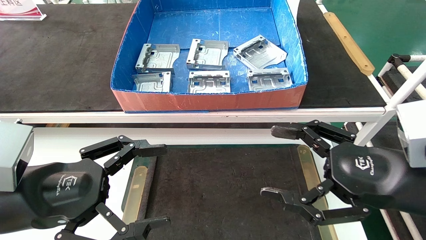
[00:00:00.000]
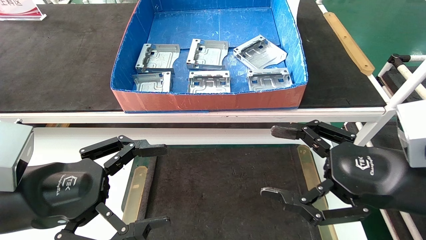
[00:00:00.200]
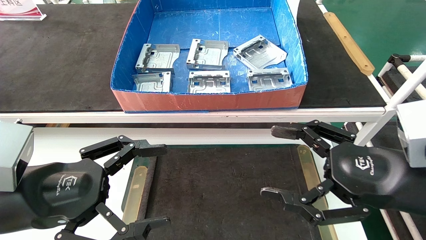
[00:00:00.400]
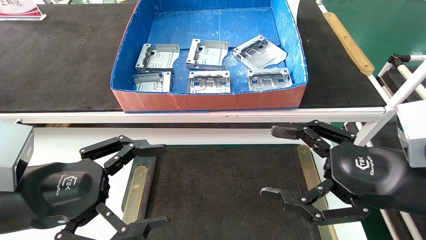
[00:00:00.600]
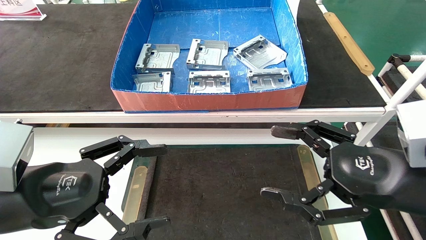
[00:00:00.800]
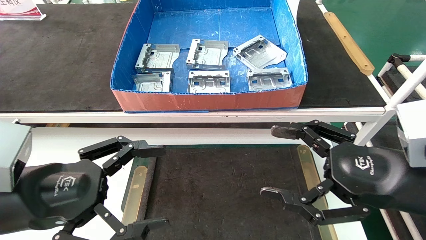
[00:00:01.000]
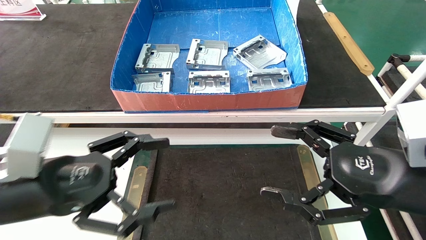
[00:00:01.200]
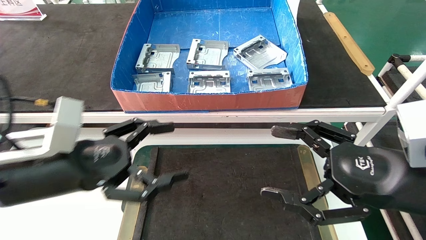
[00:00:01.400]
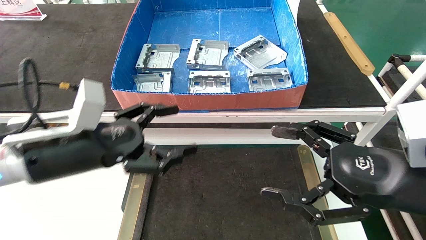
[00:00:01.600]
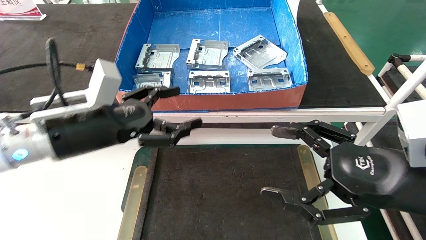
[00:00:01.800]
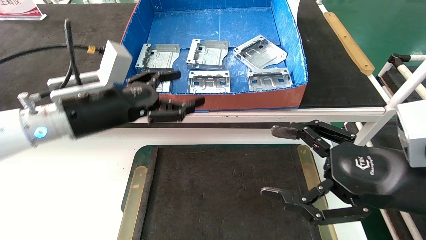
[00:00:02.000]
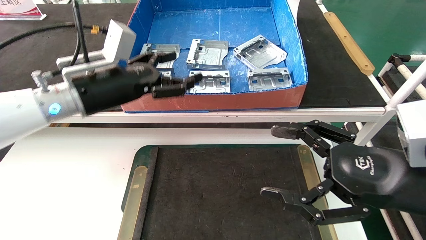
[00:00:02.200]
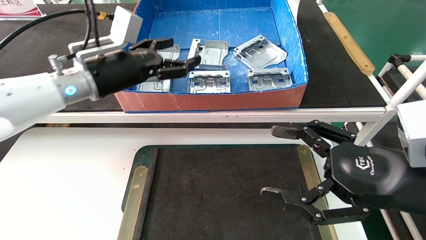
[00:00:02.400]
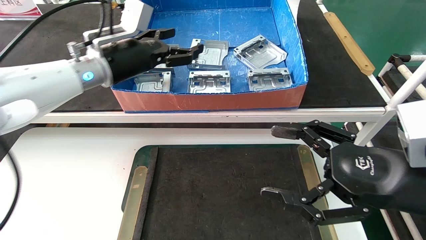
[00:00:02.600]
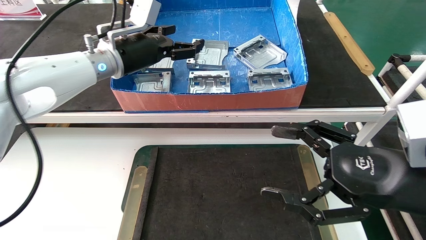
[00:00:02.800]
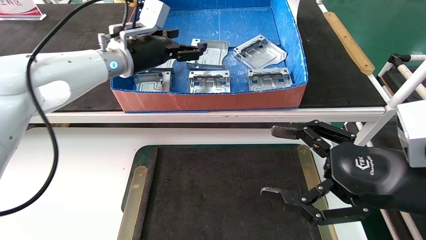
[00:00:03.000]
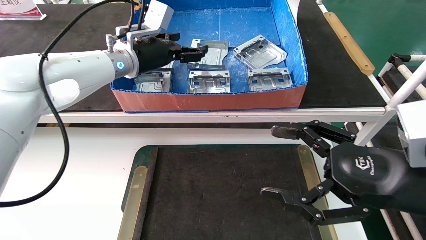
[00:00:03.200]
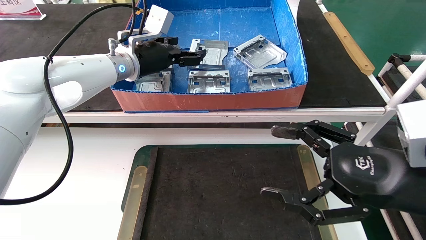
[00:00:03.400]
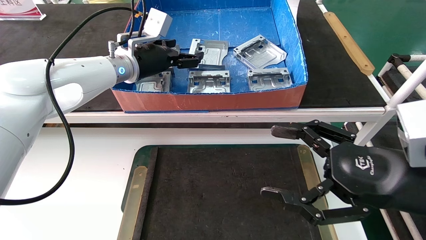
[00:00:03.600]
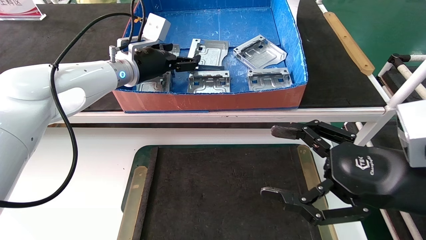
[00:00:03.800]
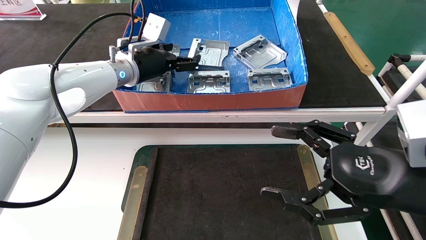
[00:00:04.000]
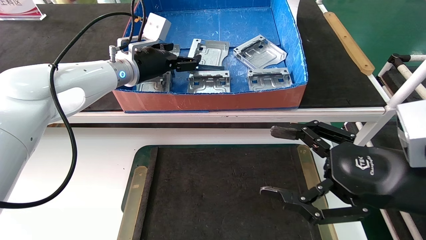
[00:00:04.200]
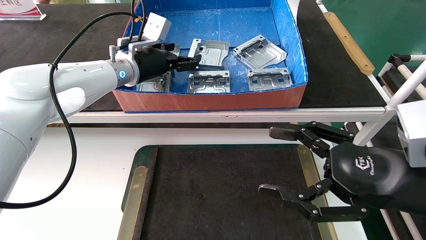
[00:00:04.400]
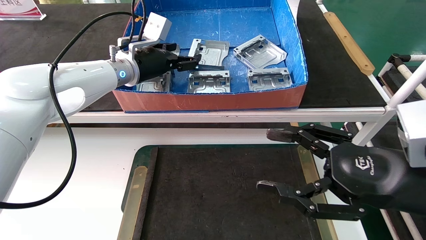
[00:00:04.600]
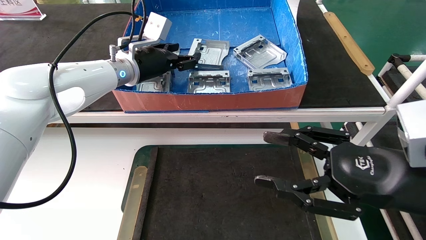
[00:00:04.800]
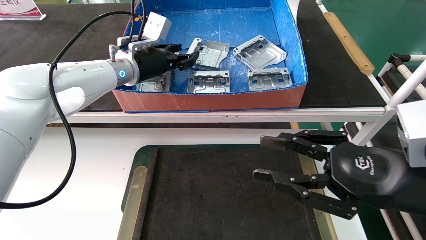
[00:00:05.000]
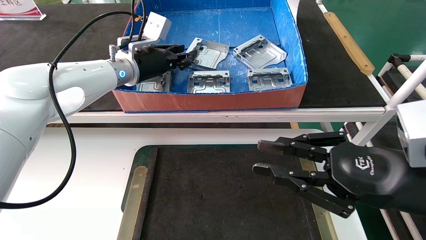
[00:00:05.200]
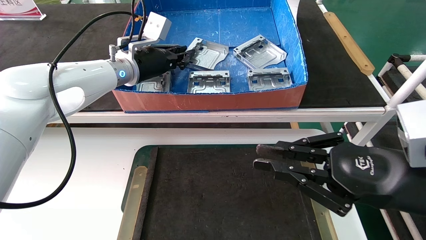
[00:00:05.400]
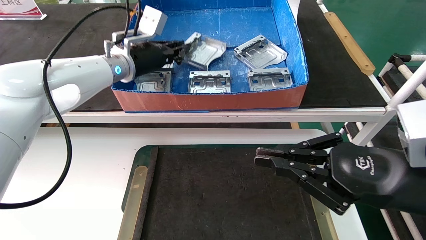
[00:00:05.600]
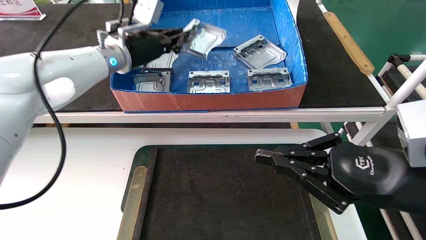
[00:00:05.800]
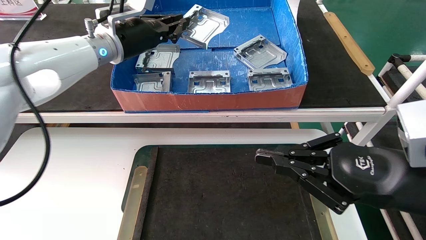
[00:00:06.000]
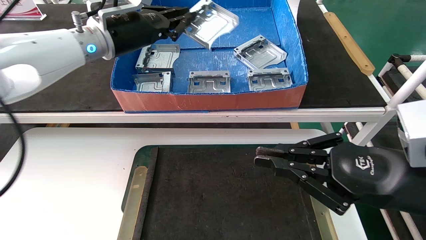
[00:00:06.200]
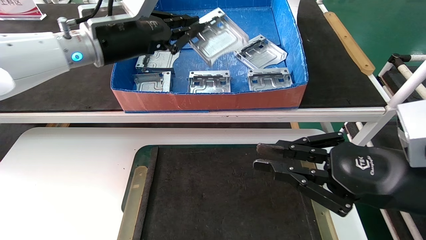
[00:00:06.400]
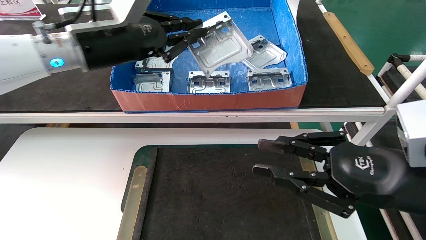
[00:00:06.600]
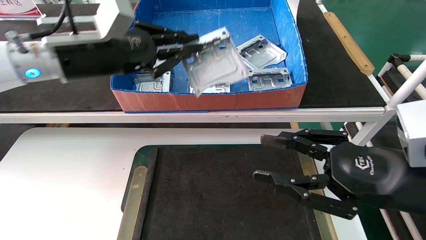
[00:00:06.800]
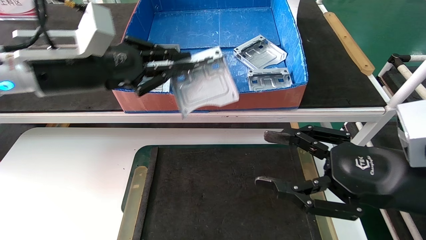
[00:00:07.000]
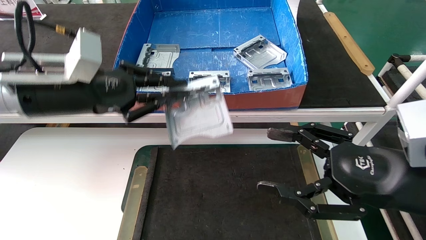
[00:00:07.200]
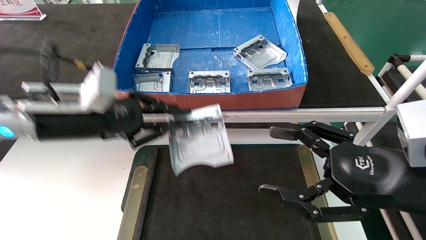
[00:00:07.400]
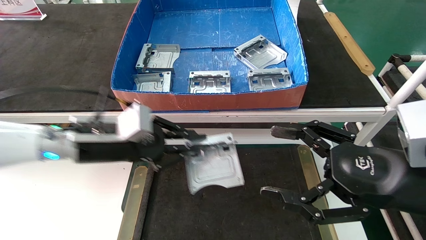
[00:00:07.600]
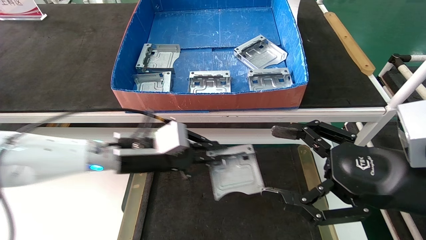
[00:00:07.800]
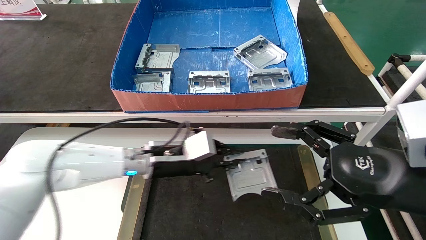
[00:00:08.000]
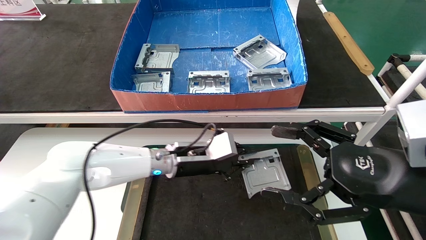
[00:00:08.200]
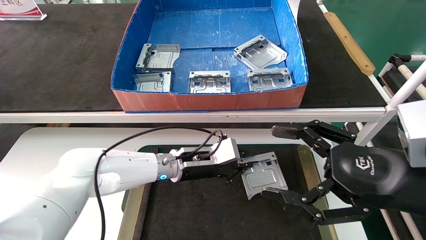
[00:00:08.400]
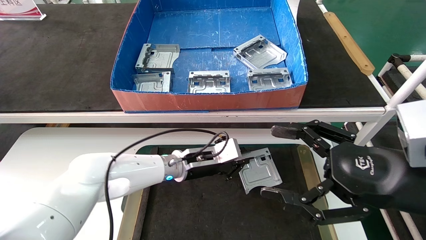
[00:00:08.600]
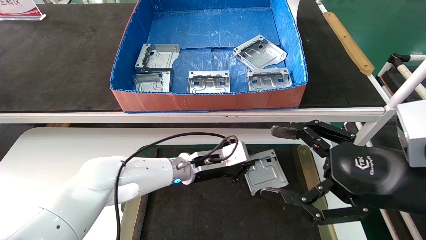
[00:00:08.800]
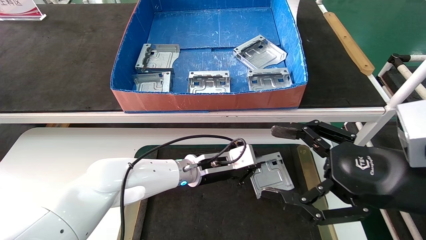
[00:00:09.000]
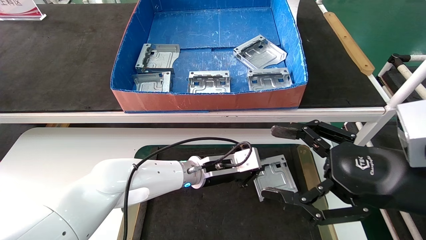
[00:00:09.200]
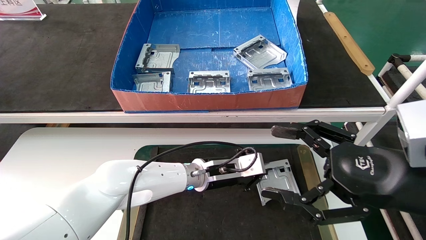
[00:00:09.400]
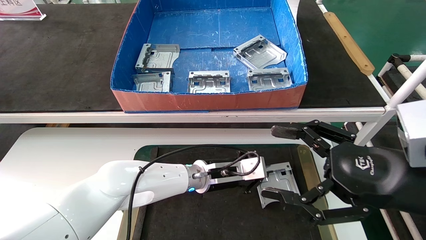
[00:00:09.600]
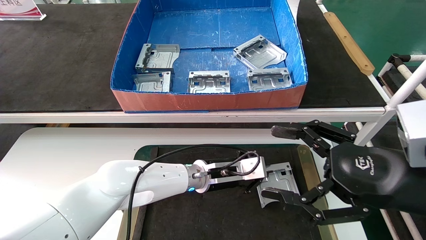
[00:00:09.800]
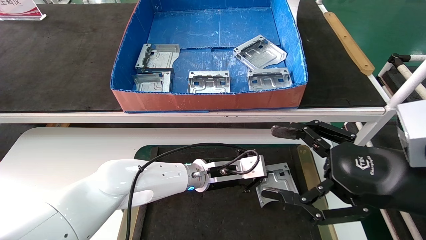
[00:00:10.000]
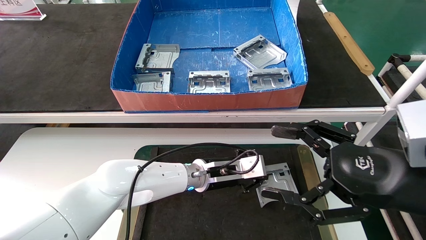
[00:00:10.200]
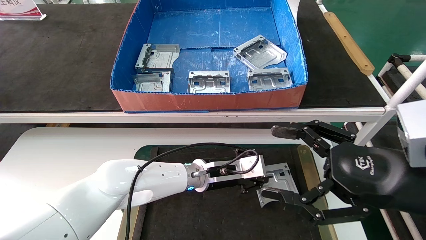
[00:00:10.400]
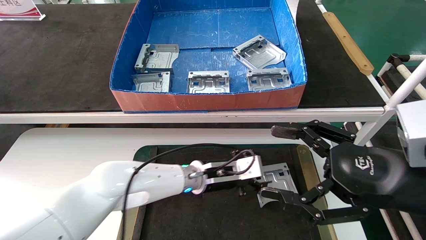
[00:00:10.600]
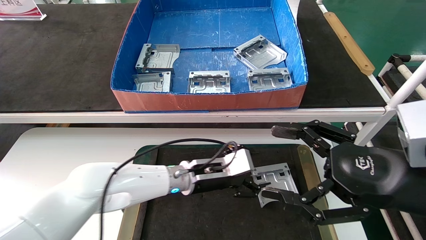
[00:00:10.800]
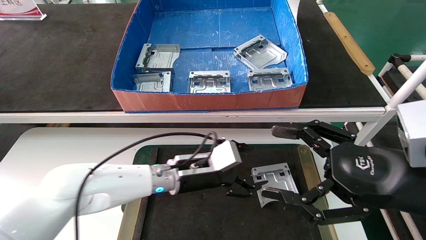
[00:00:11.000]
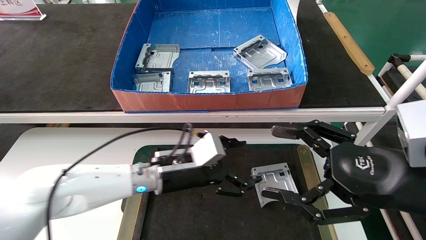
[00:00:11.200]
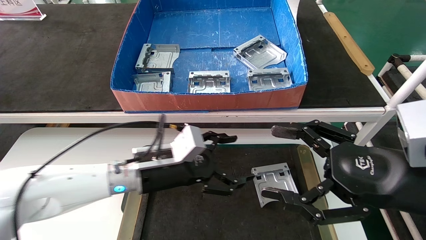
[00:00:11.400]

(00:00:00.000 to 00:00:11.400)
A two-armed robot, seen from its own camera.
Task of the whole recording: take the accessories out of the box and place them on the table.
Step, 00:00:01.800 - 00:00:05.600: Pick up the hard drive bracket from the feeding area.
Step, 00:00:05.800 - 00:00:10.200: Place the hard drive bracket into the box.
00:00:00.000 - 00:00:01.400: The left gripper heads forward, covering about 5 cm.
00:00:01.400 - 00:00:02.800: The left gripper moves forward and upward, about 25 cm.
00:00:02.800 - 00:00:04.200: There are only small adjustments of the grippers.
00:00:04.200 - 00:00:05.600: The left gripper closes up. Meanwhile the right gripper closes its fingers.
00:00:05.600 - 00:00:07.200: The right gripper opens; the left gripper moves backward and to the left, roughly 15 cm.
00:00:07.200 - 00:00:08.600: The left gripper goes some 30 cm downward, to the right and forward.
00:00:08.600 - 00:00:10.000: The left gripper is displaced to the right by approximately 5 cm.
00:00:10.000 - 00:00:11.400: The left gripper heads to the left and backward, covering roughly 15 cm, and opens.
